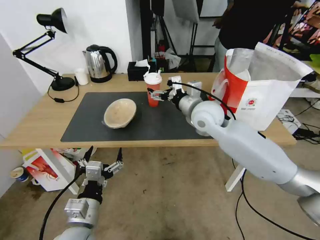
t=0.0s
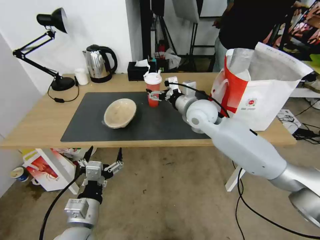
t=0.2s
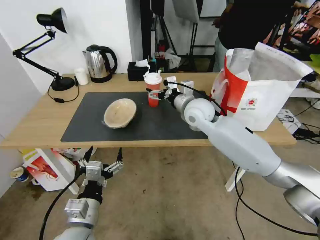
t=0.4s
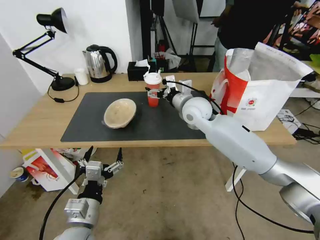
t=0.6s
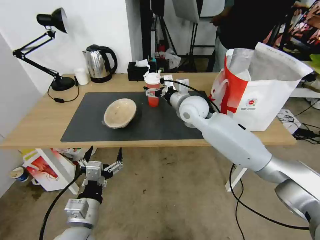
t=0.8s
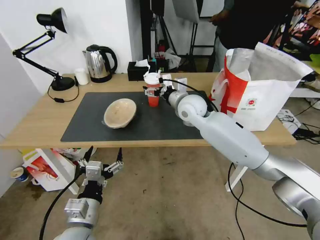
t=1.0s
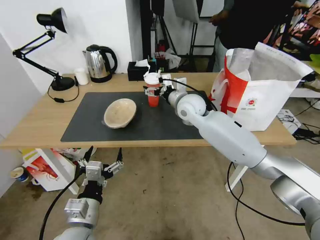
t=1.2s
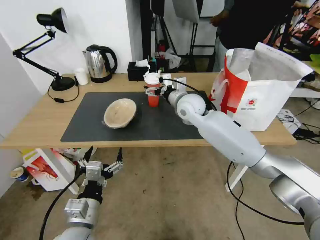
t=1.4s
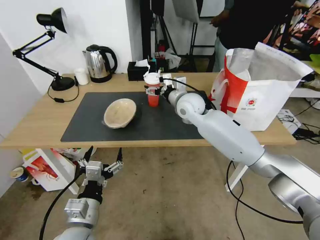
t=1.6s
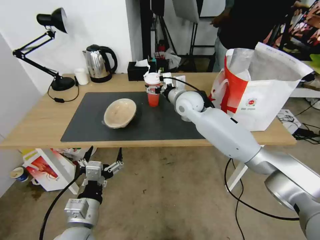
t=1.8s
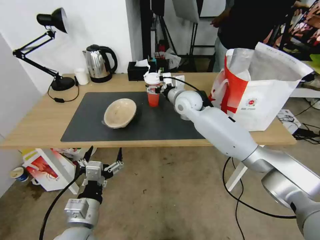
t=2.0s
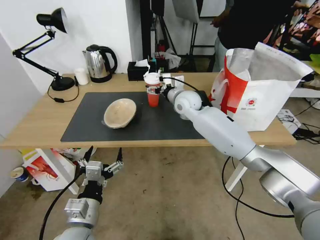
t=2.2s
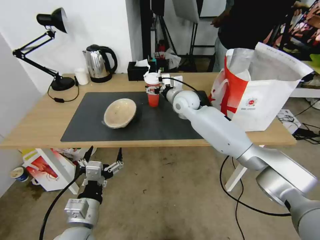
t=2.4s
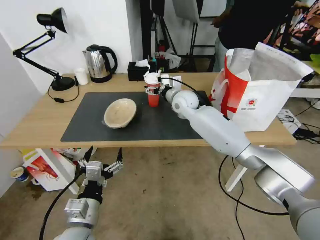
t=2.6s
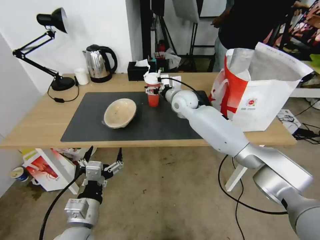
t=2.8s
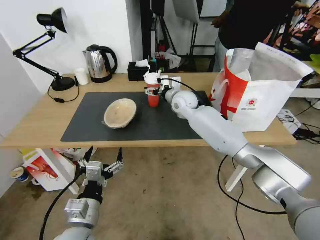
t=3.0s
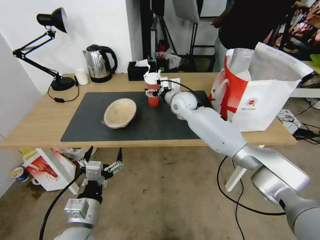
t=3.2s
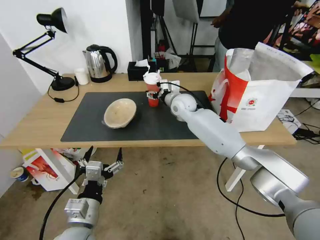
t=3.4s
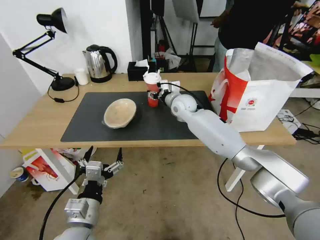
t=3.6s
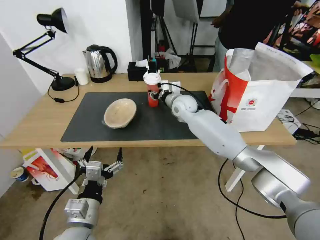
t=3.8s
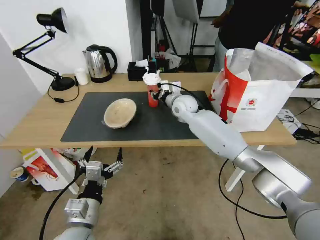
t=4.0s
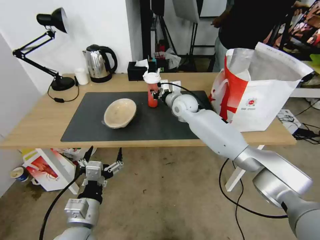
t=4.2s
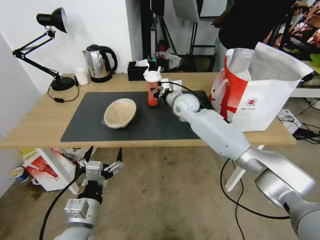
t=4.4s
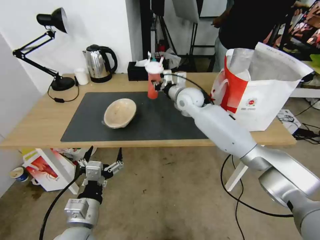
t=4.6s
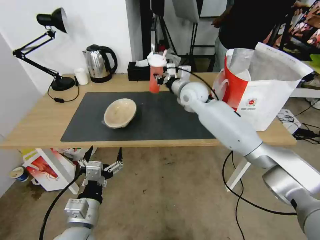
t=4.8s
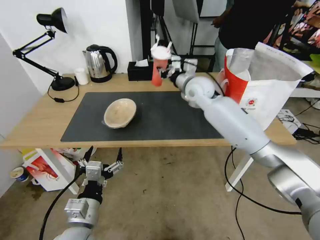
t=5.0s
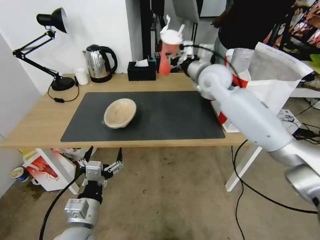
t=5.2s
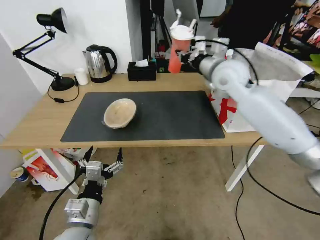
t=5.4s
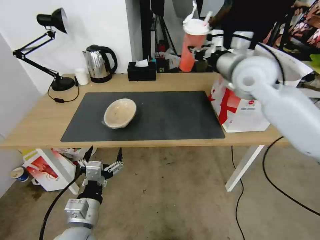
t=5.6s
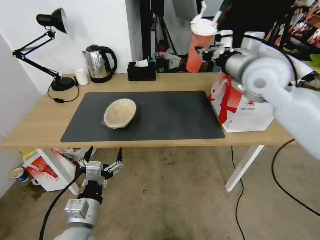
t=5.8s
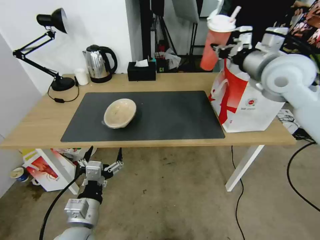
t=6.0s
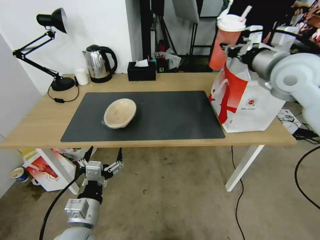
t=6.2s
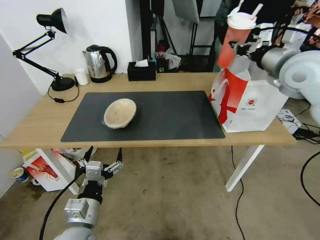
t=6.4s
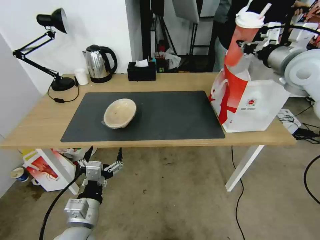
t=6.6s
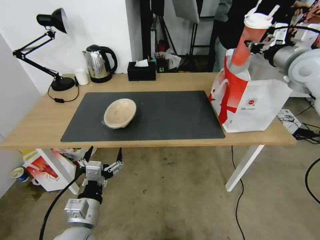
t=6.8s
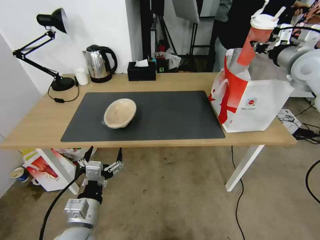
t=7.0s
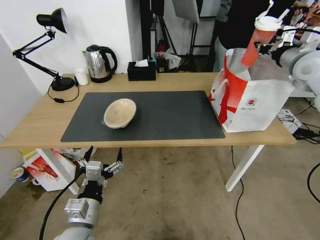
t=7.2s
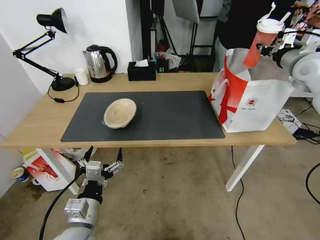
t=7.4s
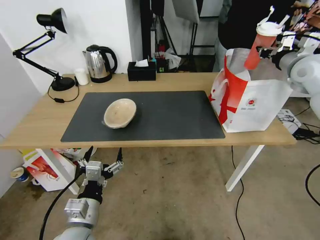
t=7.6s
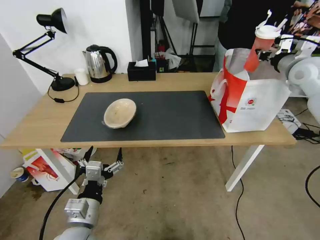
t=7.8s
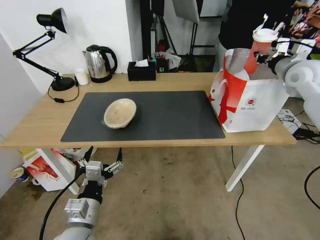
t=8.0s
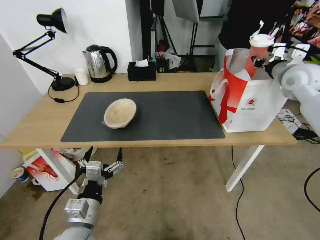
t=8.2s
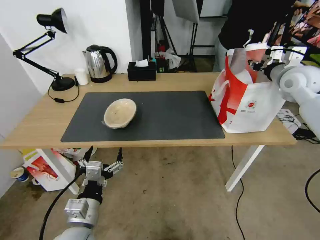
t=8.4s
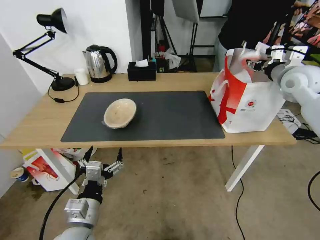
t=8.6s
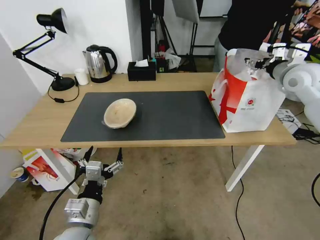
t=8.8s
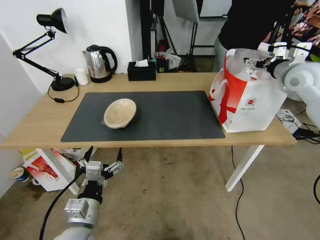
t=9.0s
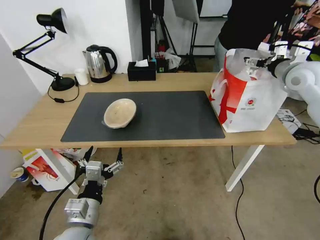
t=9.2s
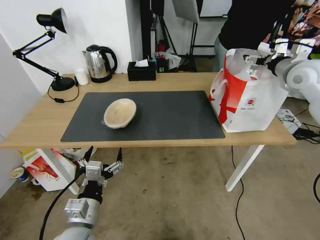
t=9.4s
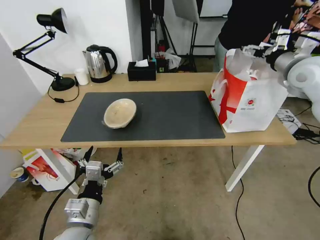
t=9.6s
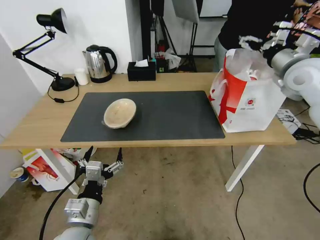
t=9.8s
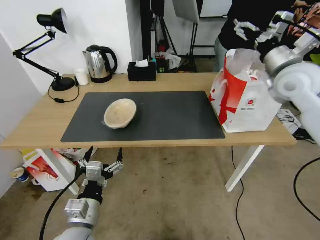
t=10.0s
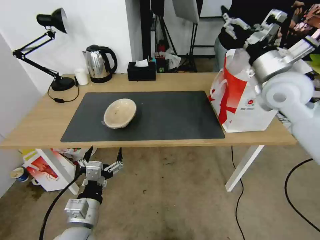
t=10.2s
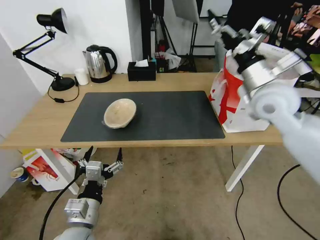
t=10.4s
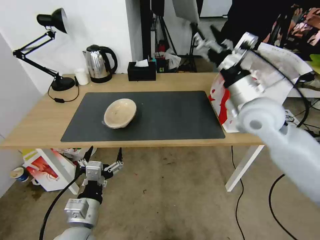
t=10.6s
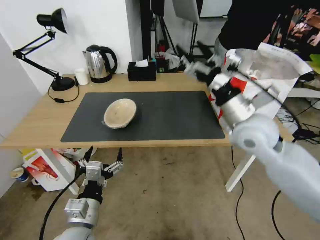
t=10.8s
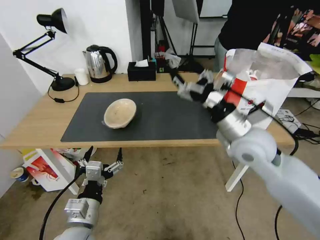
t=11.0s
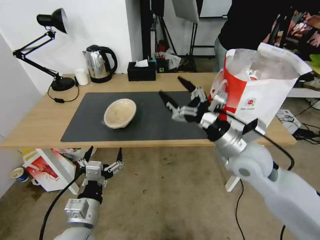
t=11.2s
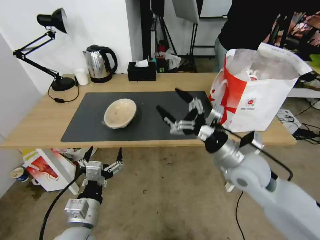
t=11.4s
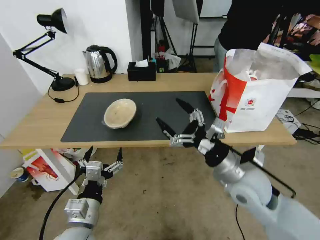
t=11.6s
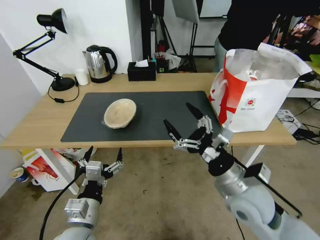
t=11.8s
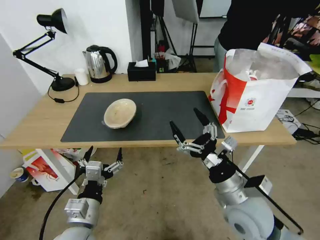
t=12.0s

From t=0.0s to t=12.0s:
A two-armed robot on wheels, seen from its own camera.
Task of the whole recording: Pick up the trash from the table and place it into the takeout bag.
From t=0.0s to t=1.6s: The right gripper heads forward, covering some 5 cm.
From t=1.6s to t=3.0s: The right gripper ends up roughly 5 cm from where it was.
From t=3.0s to t=4.4s: The right gripper closes up.
From t=4.4s to t=6.0s: The right gripper goes some 30 cm upward, to the right and backward.
From t=6.0s to t=7.6s: The right gripper goes some 15 cm to the right and forward.
From t=7.6s to t=9.0s: The right gripper opens up.
From t=9.0s to t=10.4s: The right gripper goes roughly 15 cm to the left and backward.
From t=10.4s to t=12.0s: The right gripper heads backward and downward, covering about 25 cm.

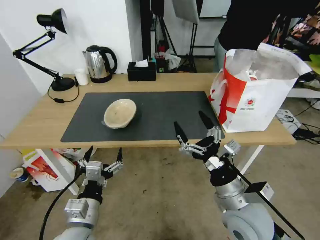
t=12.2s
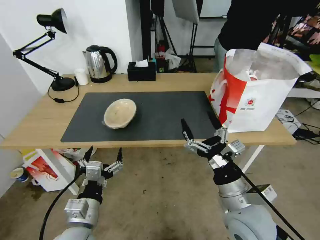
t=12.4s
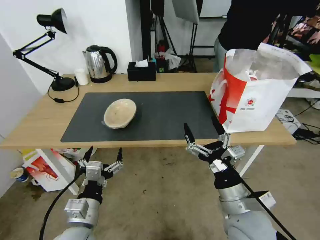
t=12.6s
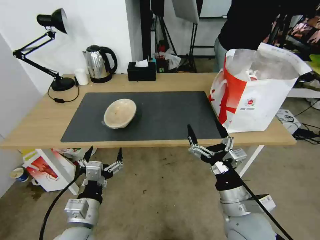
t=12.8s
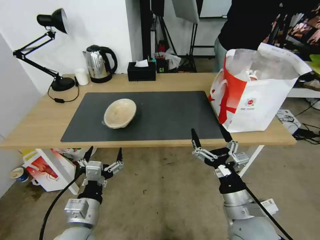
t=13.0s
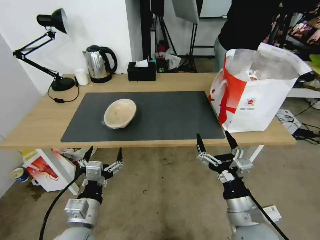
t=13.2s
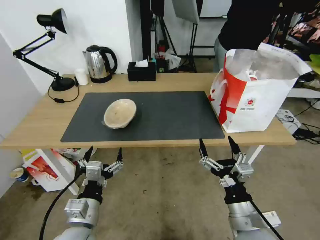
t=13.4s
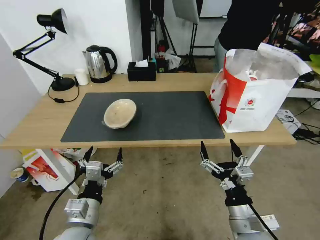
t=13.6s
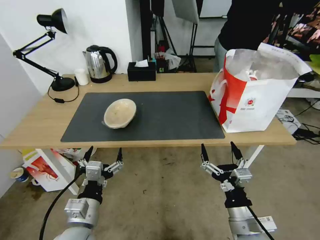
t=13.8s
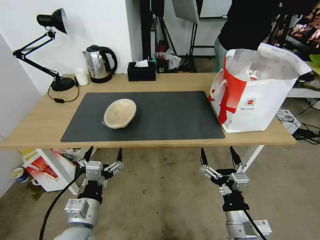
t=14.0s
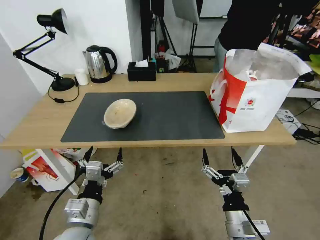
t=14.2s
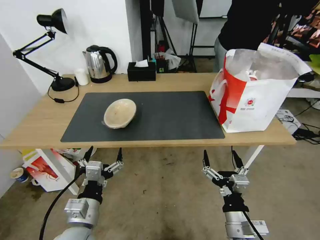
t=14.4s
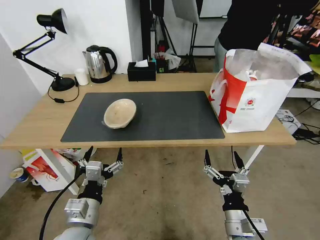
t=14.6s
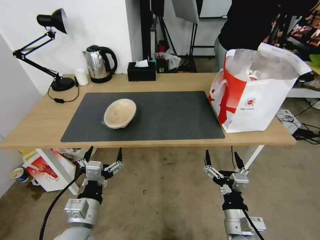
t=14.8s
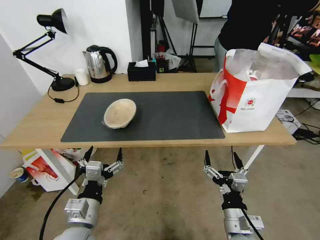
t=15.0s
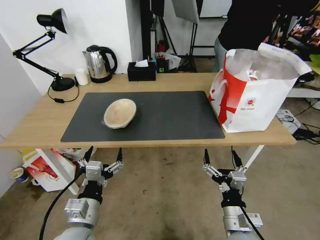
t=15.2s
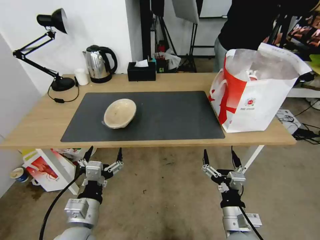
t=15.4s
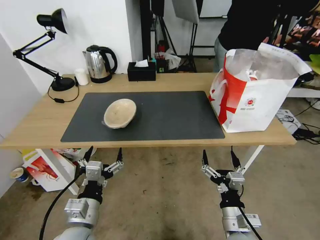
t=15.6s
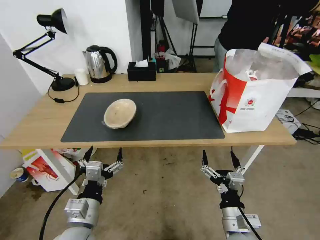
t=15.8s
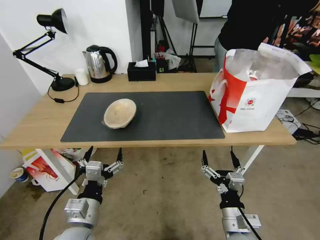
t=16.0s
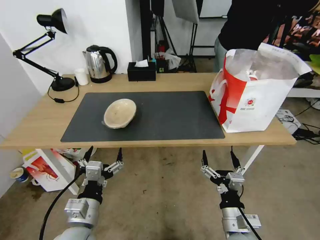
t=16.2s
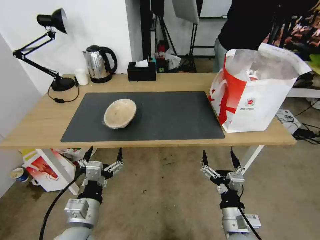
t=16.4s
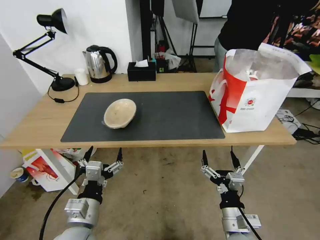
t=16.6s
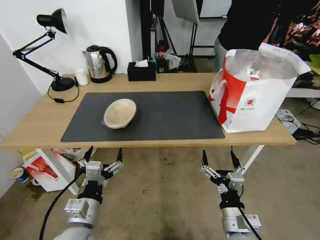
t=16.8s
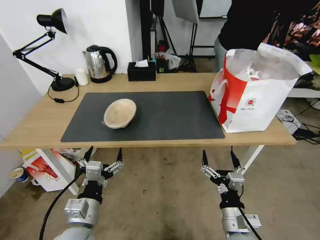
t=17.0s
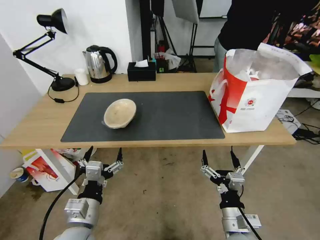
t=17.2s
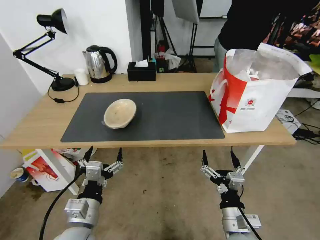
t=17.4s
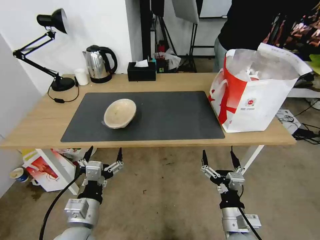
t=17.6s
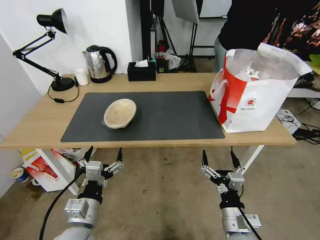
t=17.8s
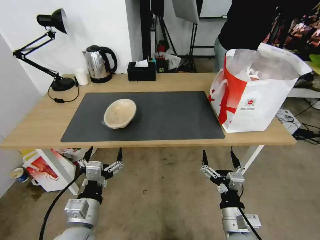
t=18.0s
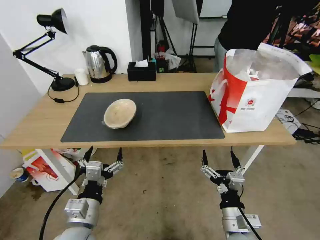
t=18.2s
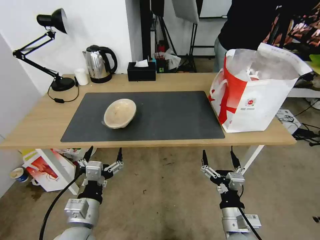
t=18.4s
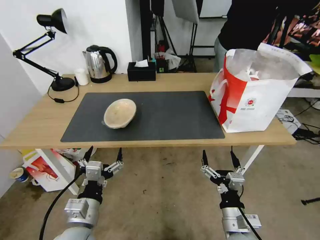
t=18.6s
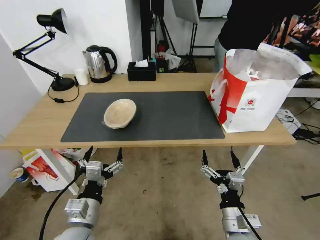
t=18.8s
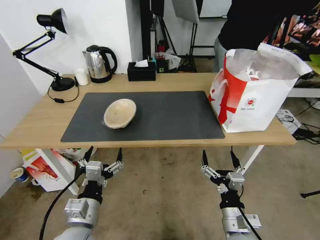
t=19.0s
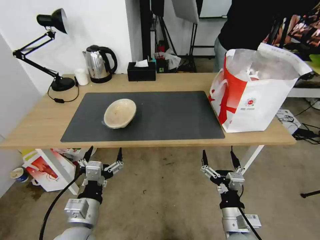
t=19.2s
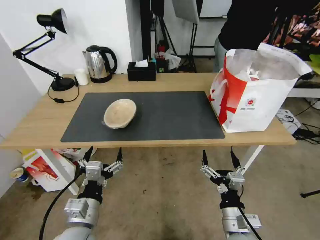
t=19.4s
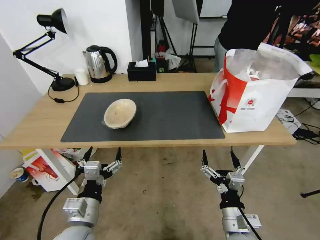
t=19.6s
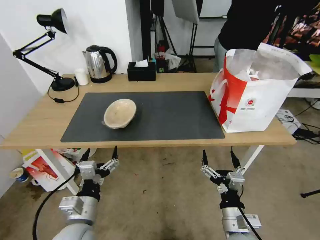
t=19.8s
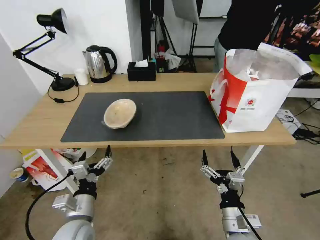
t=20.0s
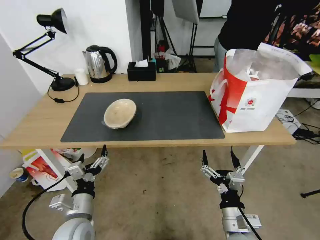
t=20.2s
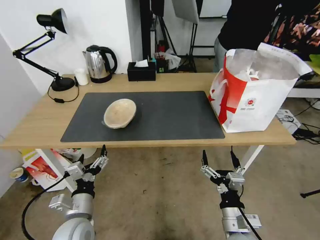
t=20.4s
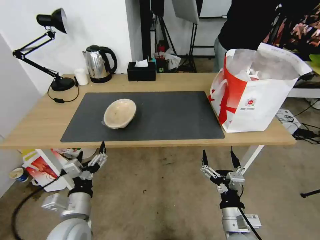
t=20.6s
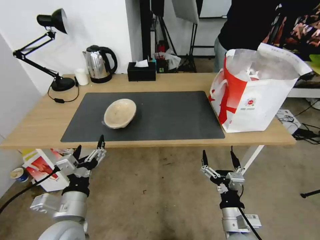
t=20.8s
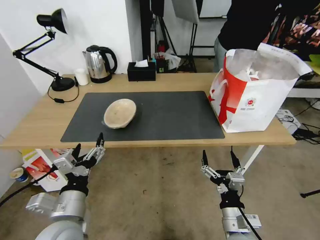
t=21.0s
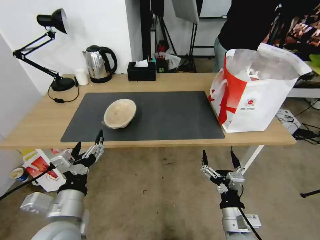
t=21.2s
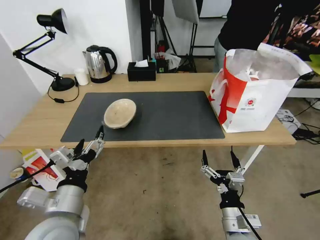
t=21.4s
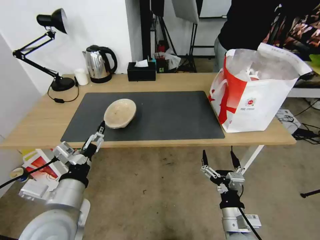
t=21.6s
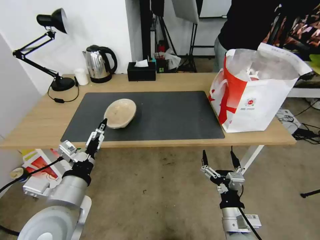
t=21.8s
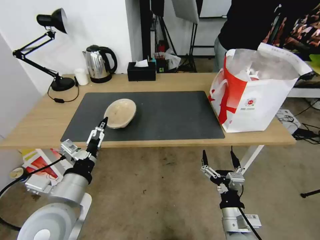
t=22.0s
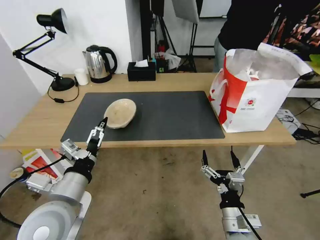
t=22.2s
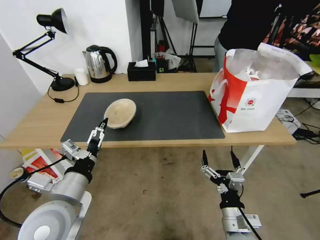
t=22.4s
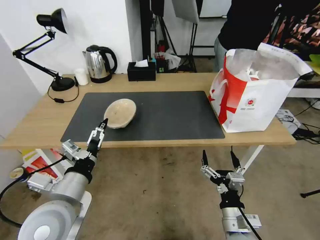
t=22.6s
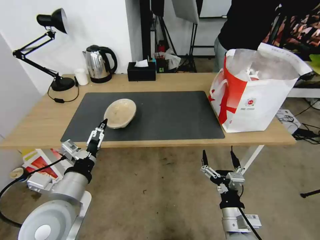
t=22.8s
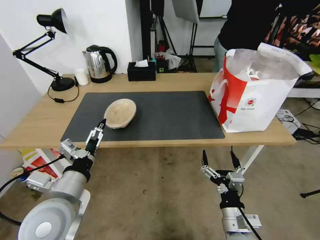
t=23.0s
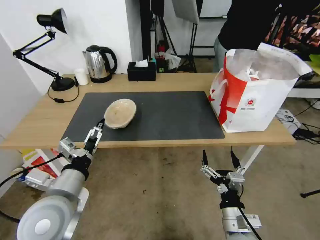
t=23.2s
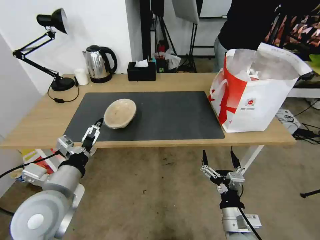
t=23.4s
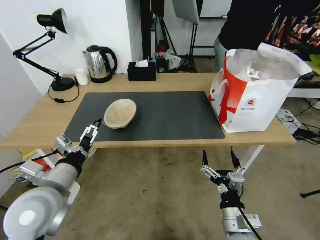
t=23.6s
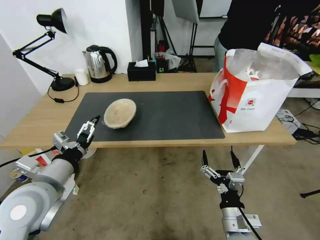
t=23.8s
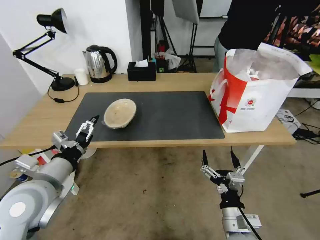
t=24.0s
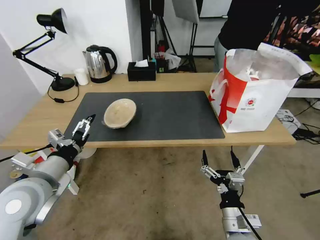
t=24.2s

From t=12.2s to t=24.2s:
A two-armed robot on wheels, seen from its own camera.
Task of the whole recording: Pick up the trash from the table and place it into the takeout bag.
From t=12.2s to t=13.8s: The right gripper goes about 10 cm backward and downward.
From t=13.8s to t=15.2s: The grippers move only a little.
From t=15.2s to t=18.2s: The two grippers keep their place.
From t=18.2s to t=19.8s: The grippers stay close to where they were, moving slightly.
From t=19.8s to t=21.2s: The left gripper shifts roughly 10 cm upward.
From t=22.6s to t=24.2s: The left gripper is displaced to the left by approximately 5 cm.
